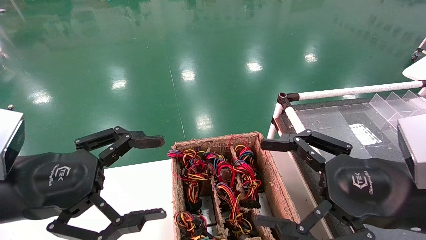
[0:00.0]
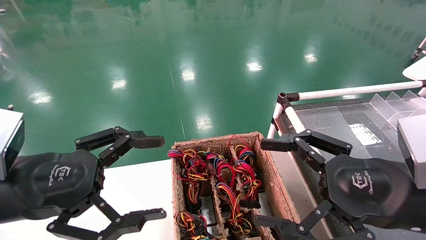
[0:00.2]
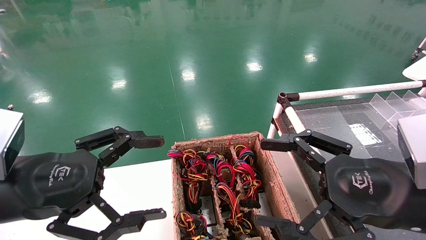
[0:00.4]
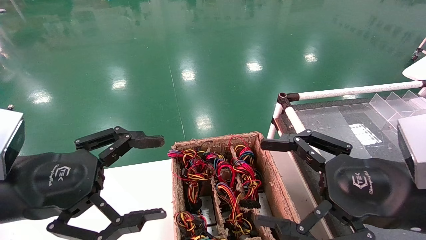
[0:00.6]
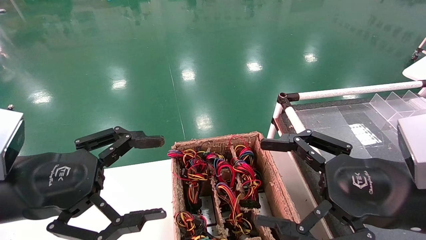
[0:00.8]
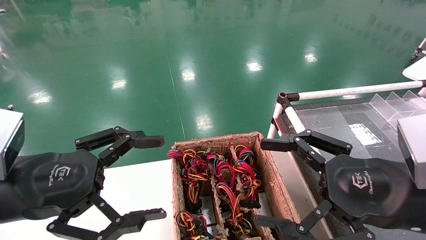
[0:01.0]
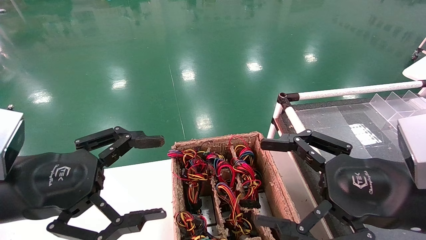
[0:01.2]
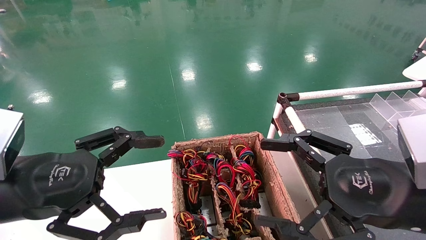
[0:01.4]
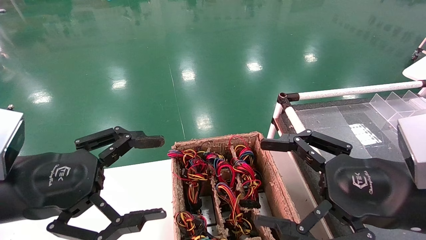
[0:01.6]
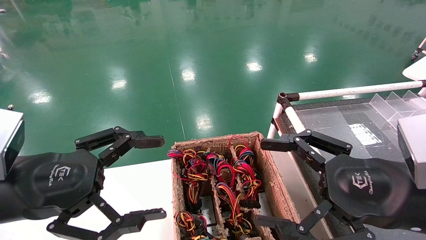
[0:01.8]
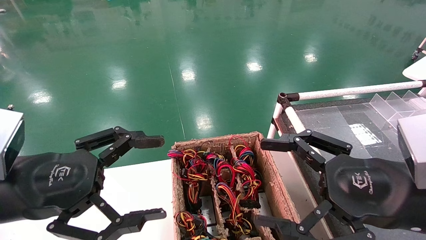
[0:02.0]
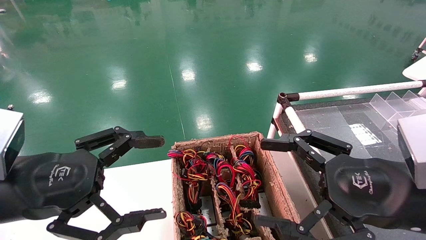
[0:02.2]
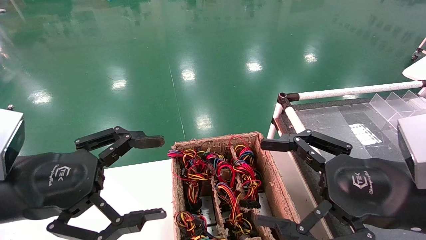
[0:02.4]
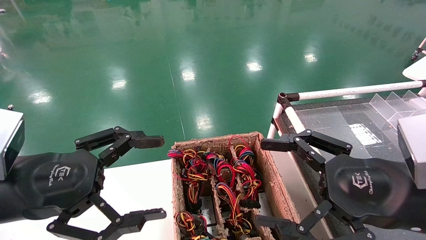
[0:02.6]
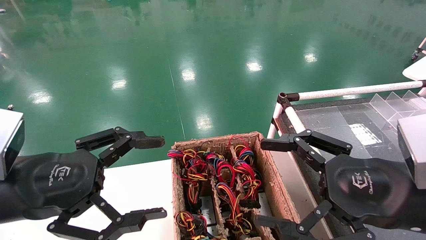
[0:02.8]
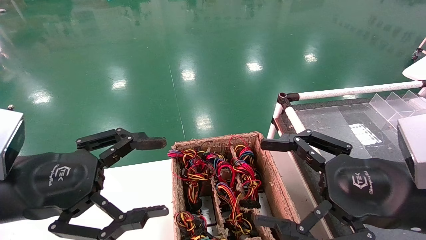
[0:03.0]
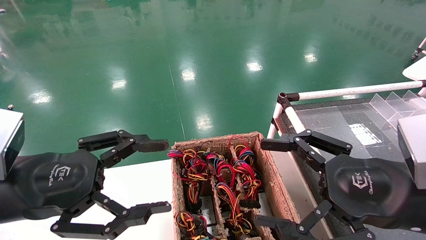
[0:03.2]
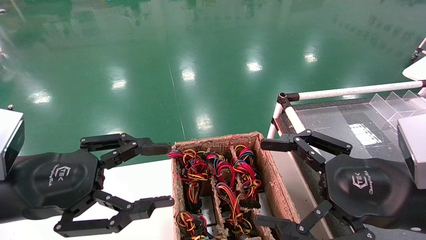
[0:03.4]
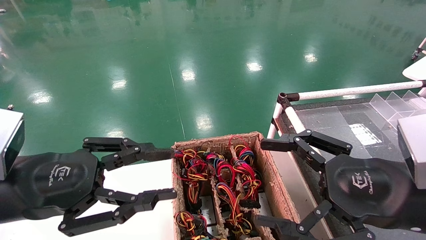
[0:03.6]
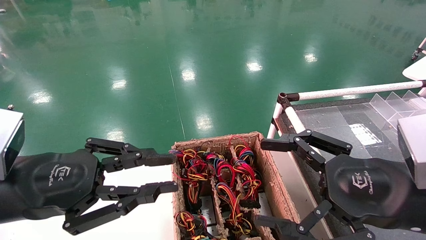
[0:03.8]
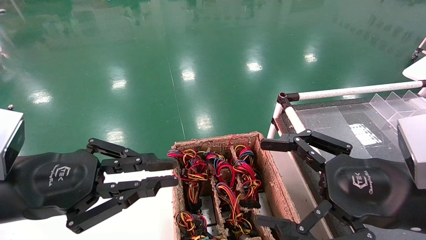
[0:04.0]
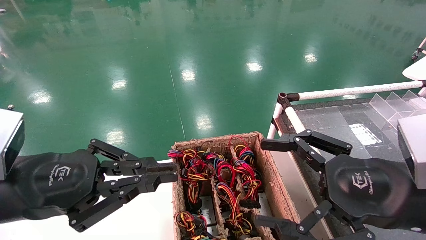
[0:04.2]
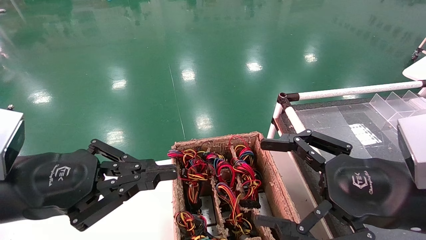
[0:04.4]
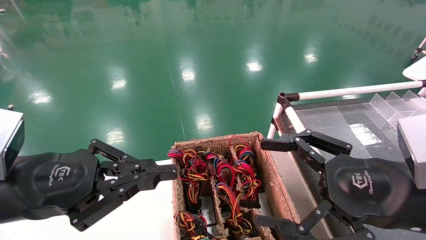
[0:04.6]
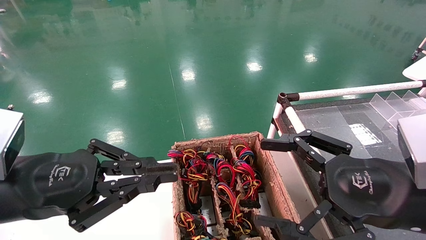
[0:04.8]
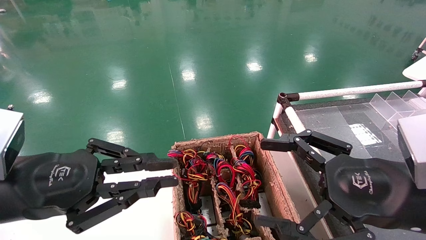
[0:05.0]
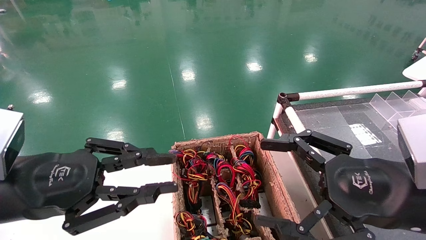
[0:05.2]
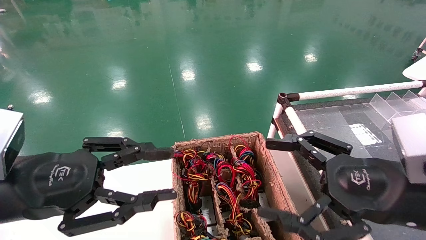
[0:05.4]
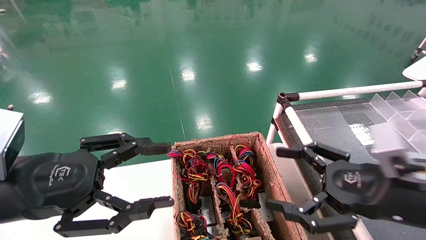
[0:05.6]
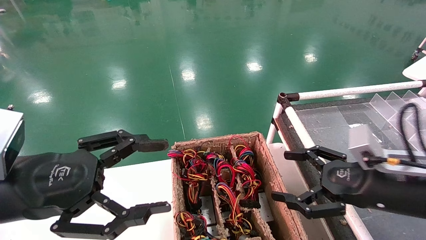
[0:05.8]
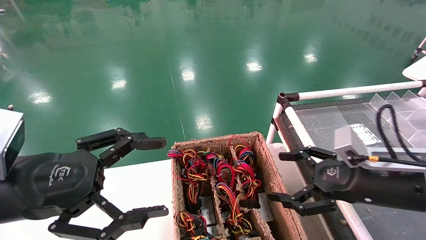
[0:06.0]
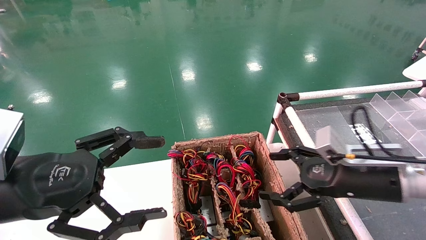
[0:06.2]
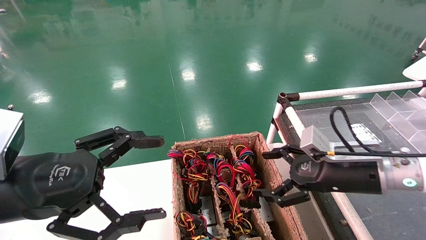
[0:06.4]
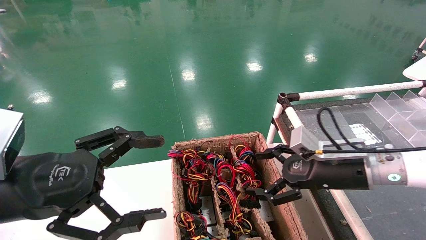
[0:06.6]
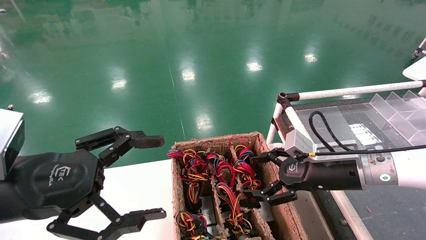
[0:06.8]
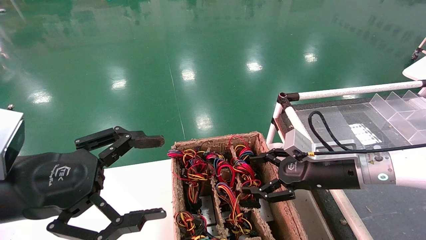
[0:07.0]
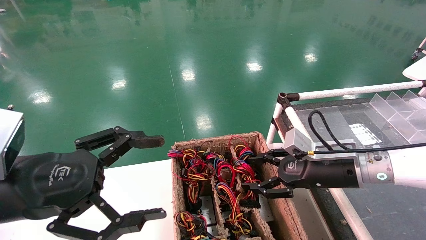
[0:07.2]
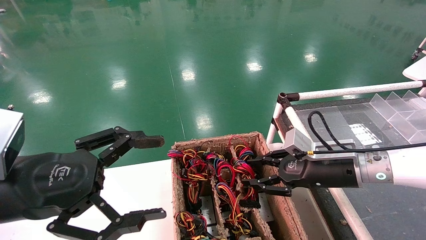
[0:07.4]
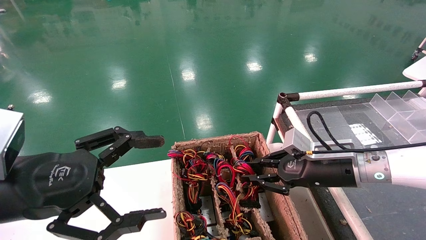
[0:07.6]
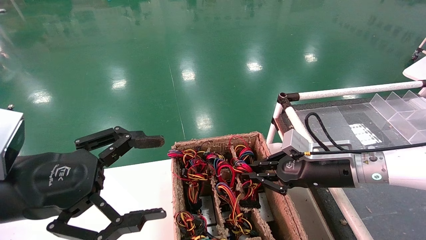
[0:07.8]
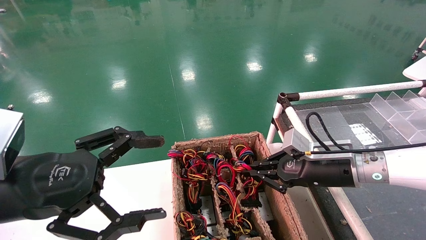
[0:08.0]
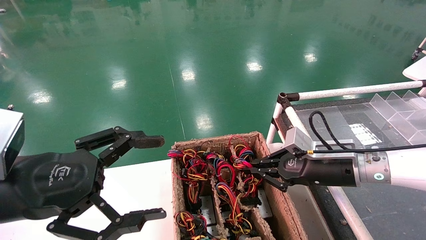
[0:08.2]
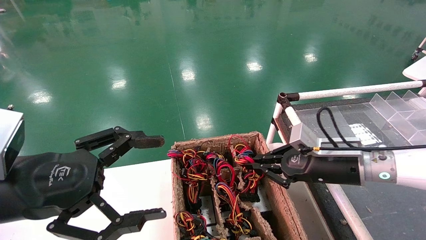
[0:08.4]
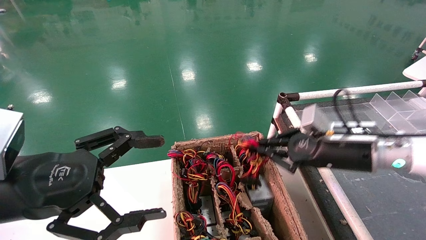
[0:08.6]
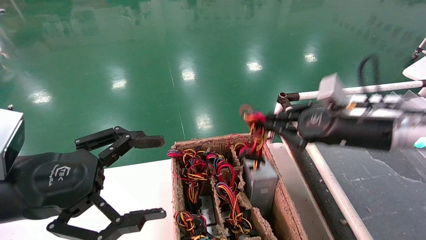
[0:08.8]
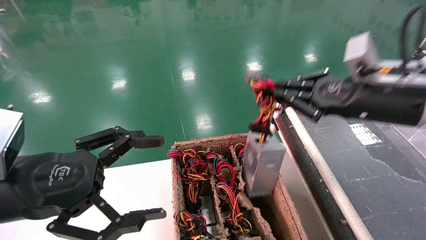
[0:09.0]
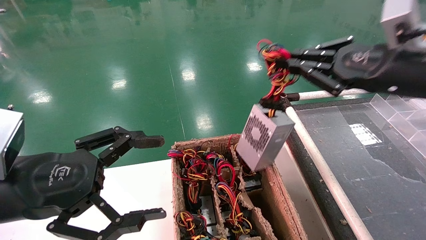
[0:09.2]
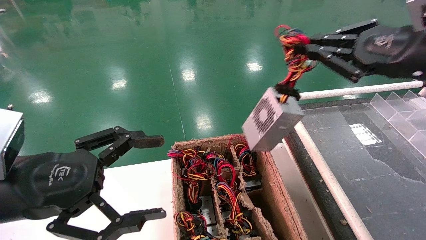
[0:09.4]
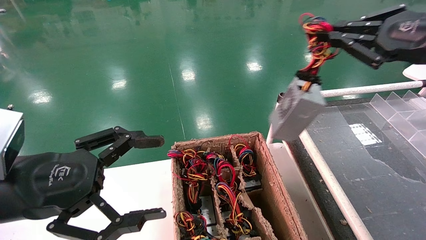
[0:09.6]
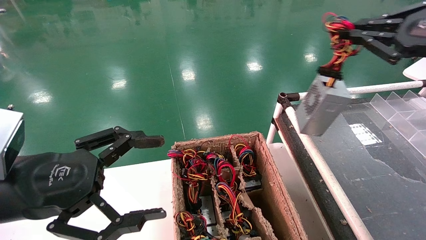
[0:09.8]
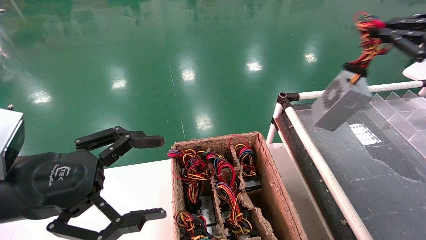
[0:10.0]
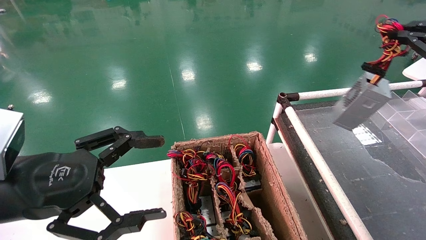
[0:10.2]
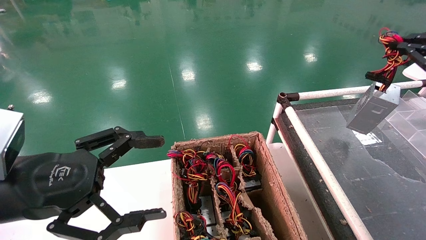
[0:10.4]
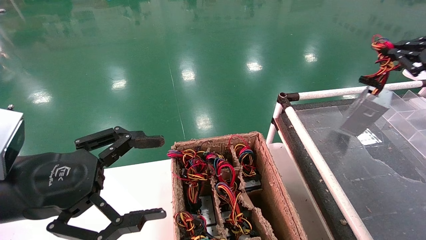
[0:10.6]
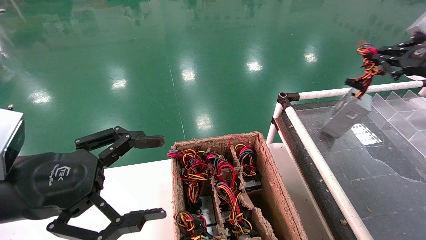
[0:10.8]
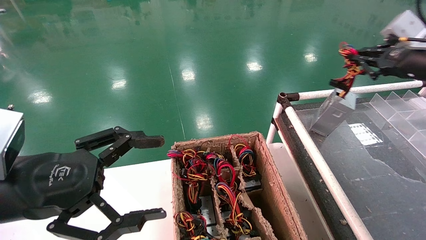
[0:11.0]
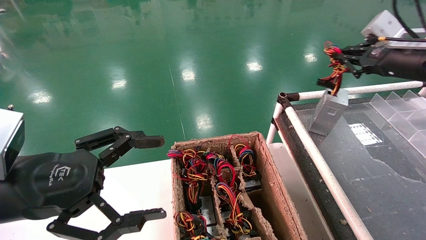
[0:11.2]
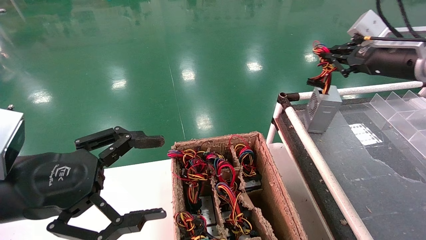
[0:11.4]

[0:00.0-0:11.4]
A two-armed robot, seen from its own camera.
Step, 0:04.4 to 0:08.2: Grab and lift the power supply from the large box.
0:00.0 to 0:02.8: Both grippers stay about where they are.
0:02.8 to 0:04.2: The left gripper closes.
0:04.2 to 0:05.6: The right gripper ends up about 5 cm from where it was; the left gripper opens its fingers.
0:05.6 to 0:07.2: The left gripper opens its fingers, while the right gripper goes about 15 cm forward.
0:07.2 to 0:08.6: The right gripper travels upward by approximately 5 cm, and closes its fingers.
0:08.6 to 0:10.0: The right gripper moves upward and to the right, about 25 cm.
0:10.0 to 0:11.4: The right gripper goes some 15 cm forward and to the left.

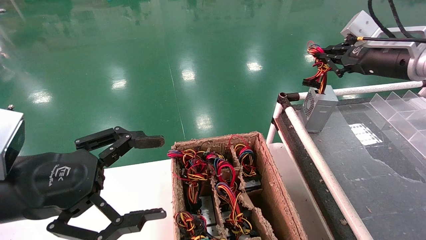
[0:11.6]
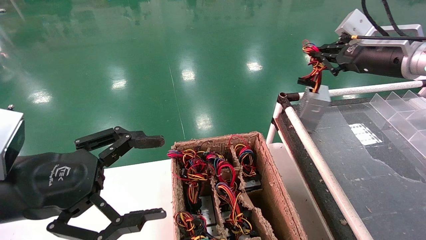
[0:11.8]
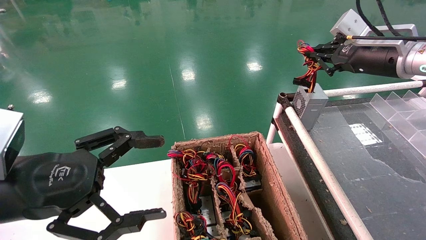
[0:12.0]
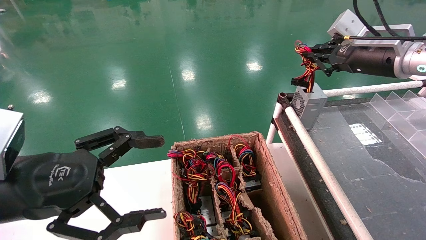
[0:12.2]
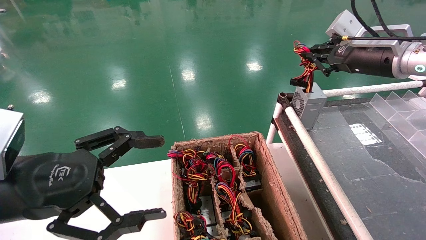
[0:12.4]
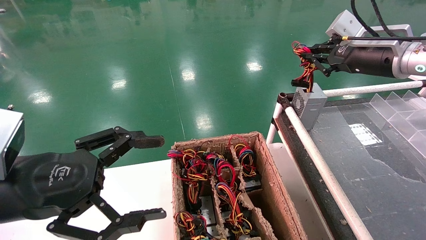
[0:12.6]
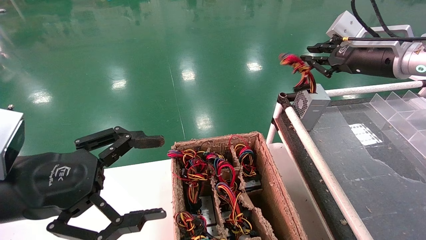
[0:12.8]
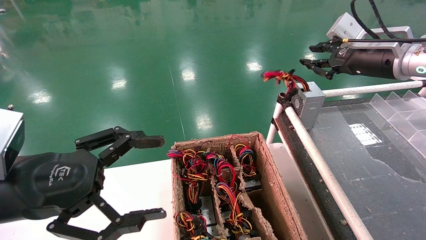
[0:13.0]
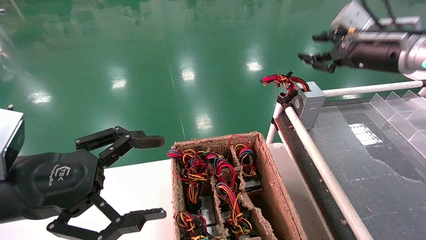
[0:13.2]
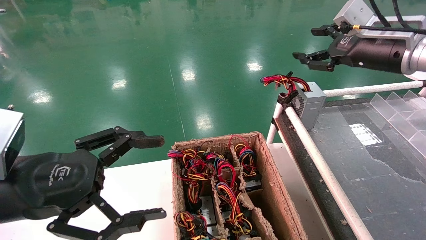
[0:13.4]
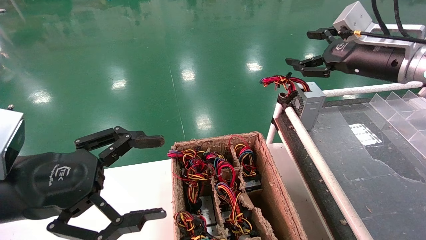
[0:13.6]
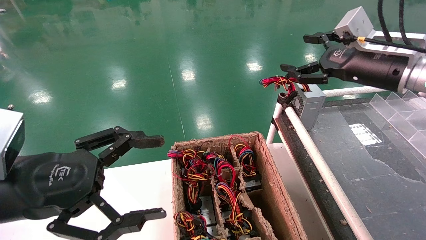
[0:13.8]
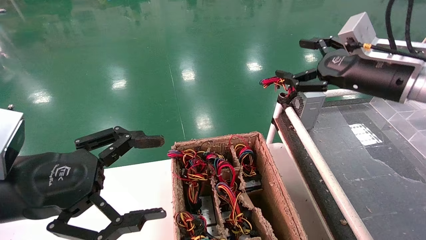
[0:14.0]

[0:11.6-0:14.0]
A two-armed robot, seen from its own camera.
0:11.6 to 0:12.8: The grippers make only small movements.
0:12.8 to 0:14.0: The right gripper moves about 5 cm, and opens up.
